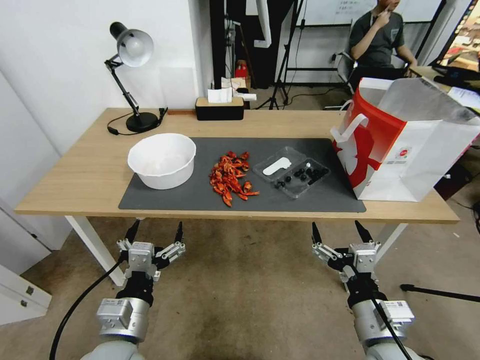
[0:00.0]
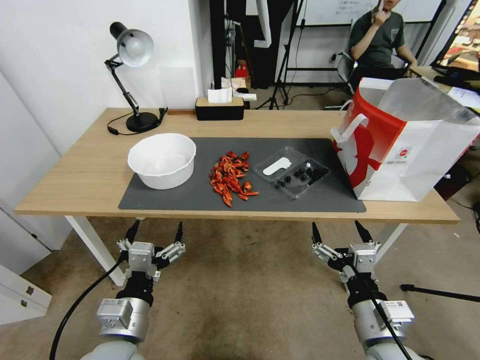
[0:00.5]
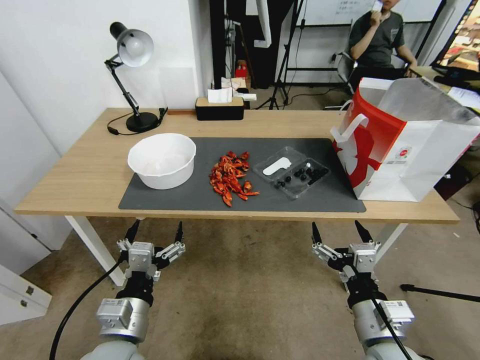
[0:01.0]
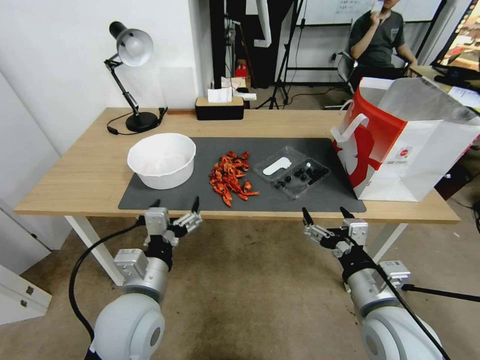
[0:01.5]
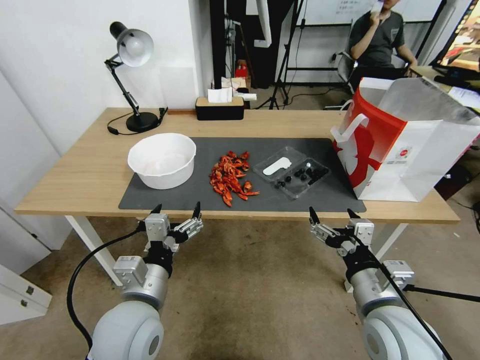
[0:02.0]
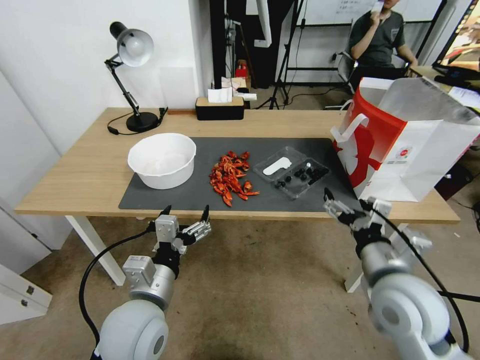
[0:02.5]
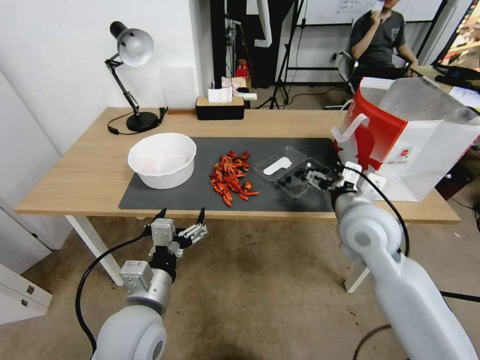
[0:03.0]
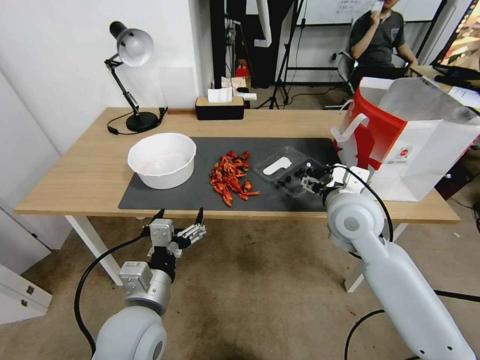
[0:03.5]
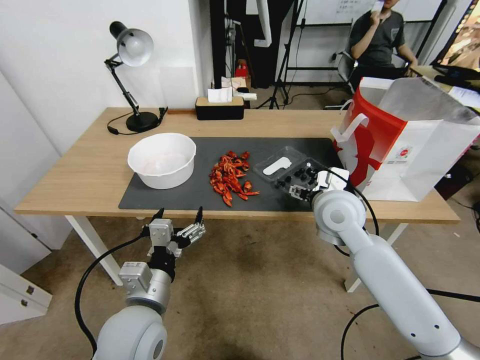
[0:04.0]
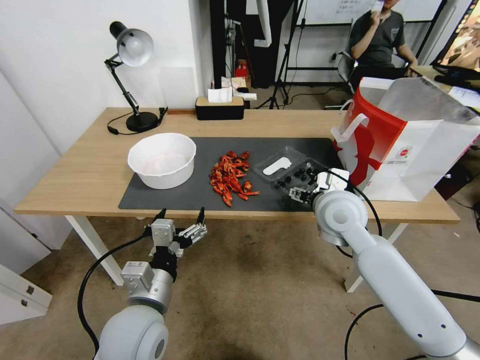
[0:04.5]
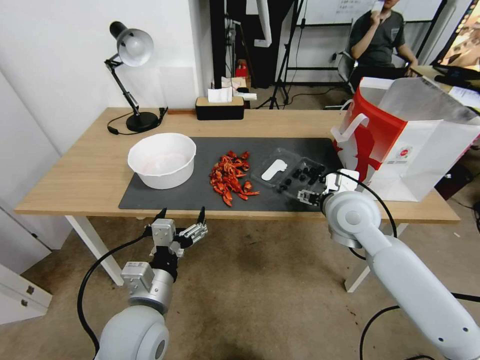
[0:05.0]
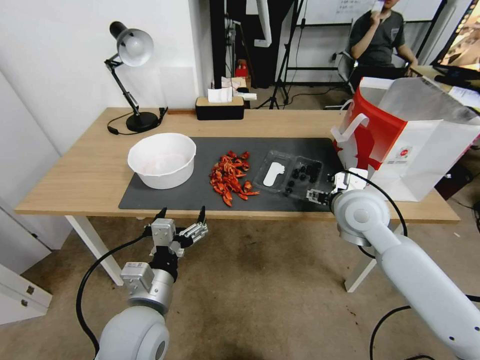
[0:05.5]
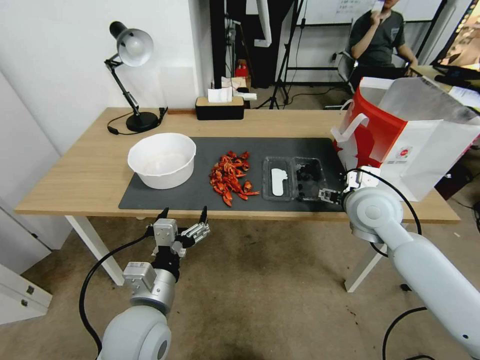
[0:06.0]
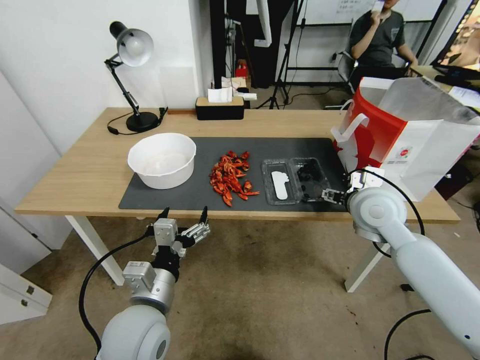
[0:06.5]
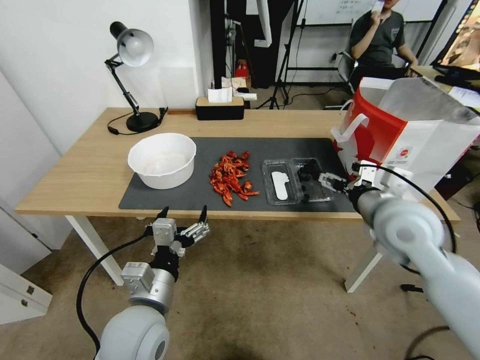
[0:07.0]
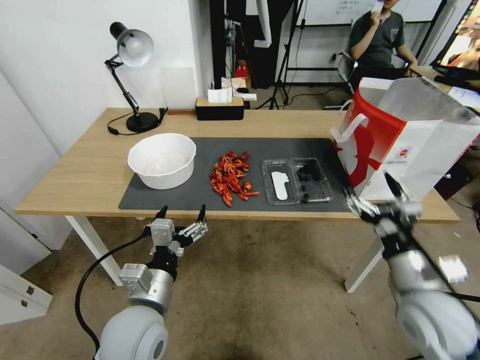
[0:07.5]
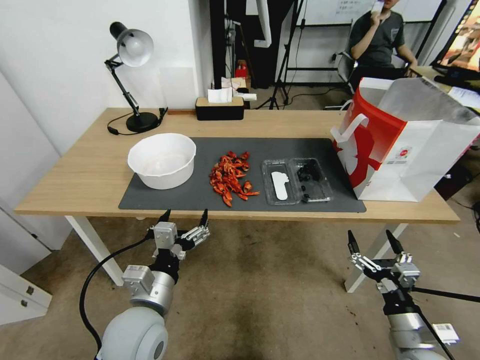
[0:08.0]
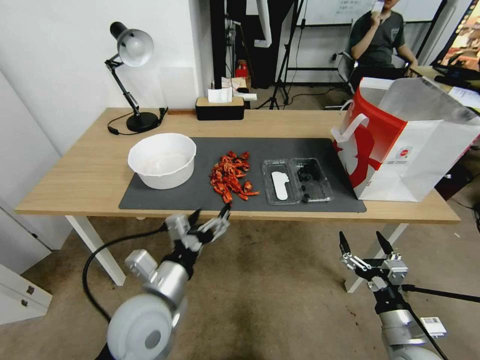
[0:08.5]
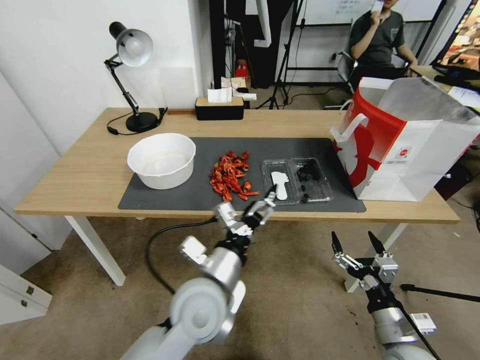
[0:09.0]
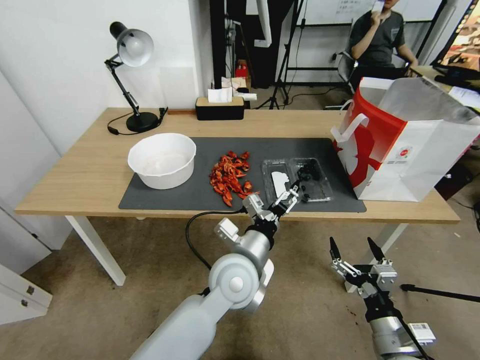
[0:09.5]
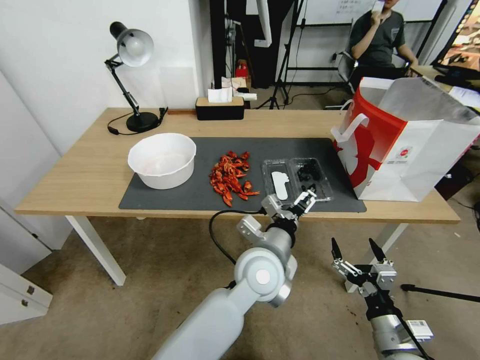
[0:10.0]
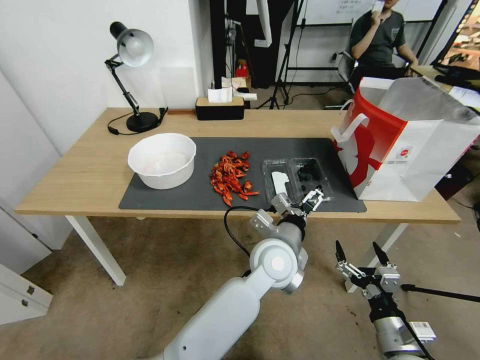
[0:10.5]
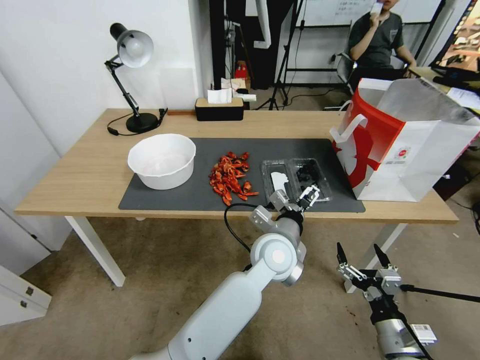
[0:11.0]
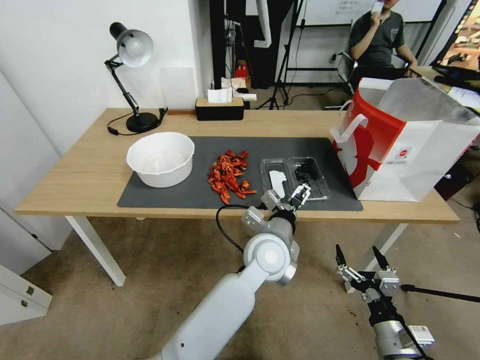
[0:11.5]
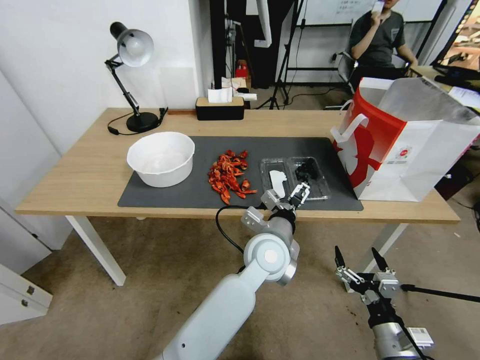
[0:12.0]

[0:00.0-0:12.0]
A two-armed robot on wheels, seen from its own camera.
0:02.0 to 0:04.0: The right gripper is displaced forward by about 20 cm.
0:04.0 to 0:06.0: The right gripper moves to the right, some 5 cm.
0:06.0 to 0:08.0: The right gripper is displaced backward and downward by approximately 30 cm.
0:08.0 to 0:10.0: The left gripper moves to the right and forward, approximately 25 cm.
0:10.0 to 0:12.0: There are only small adjustments of the grippers.

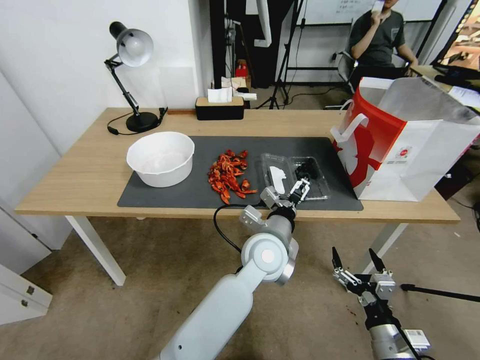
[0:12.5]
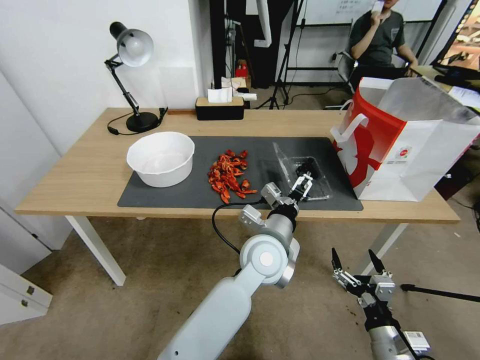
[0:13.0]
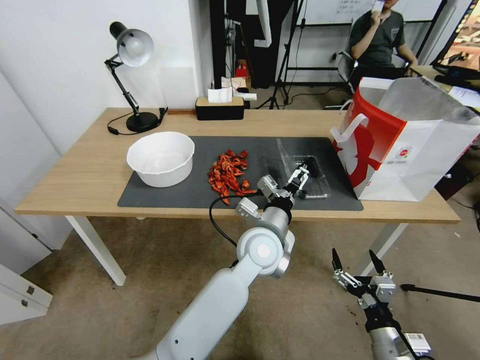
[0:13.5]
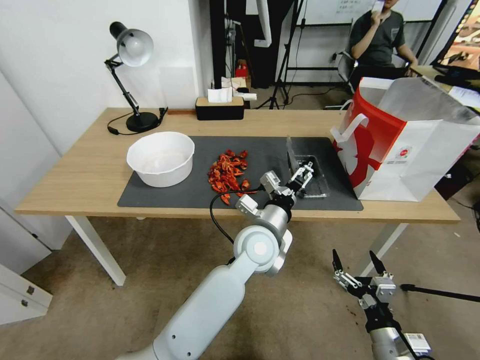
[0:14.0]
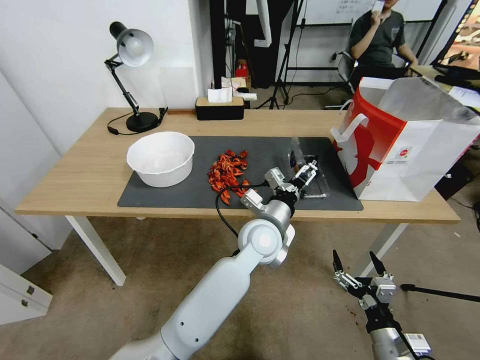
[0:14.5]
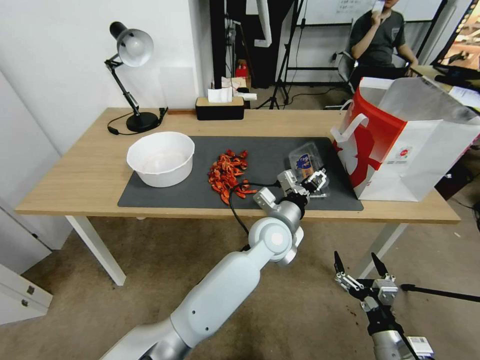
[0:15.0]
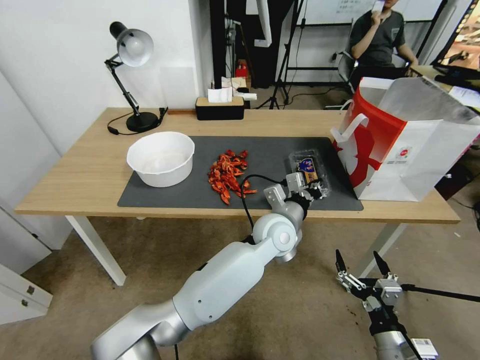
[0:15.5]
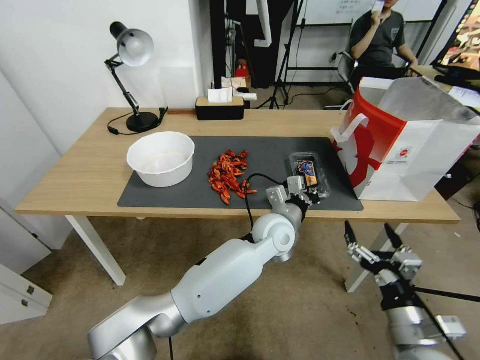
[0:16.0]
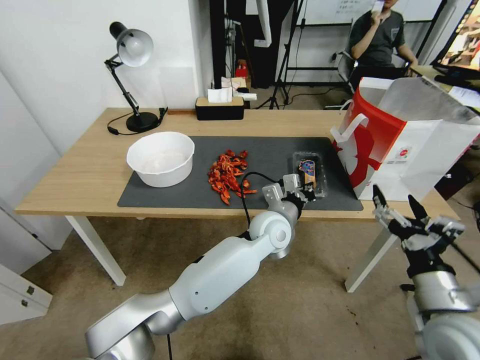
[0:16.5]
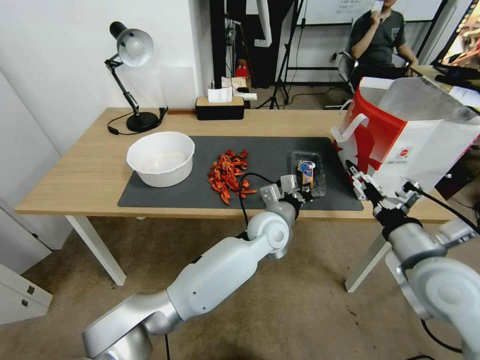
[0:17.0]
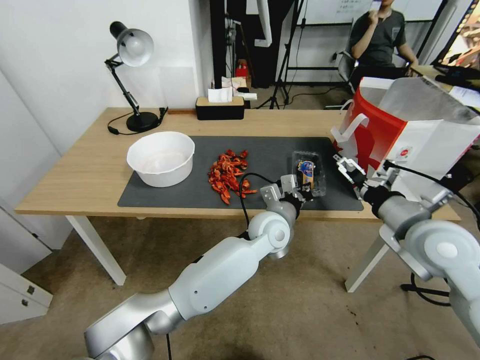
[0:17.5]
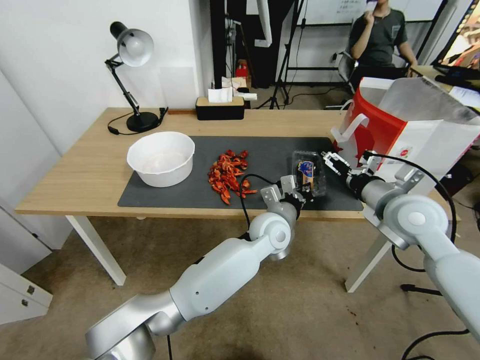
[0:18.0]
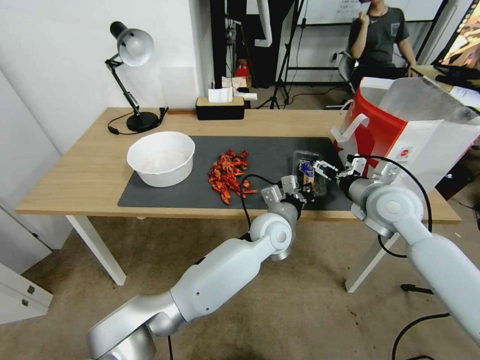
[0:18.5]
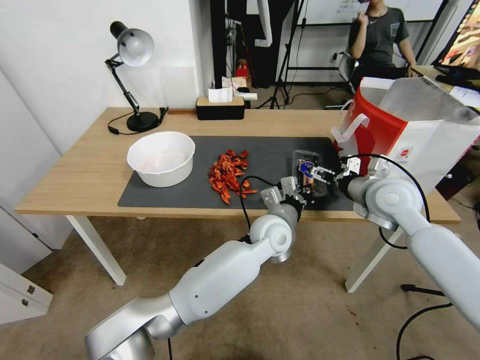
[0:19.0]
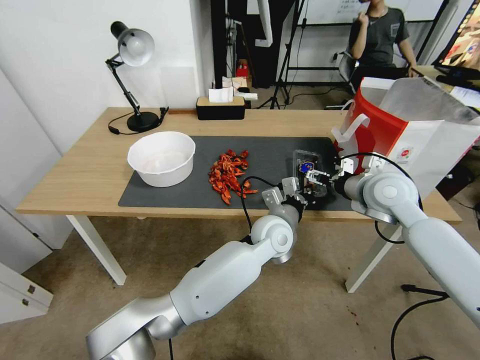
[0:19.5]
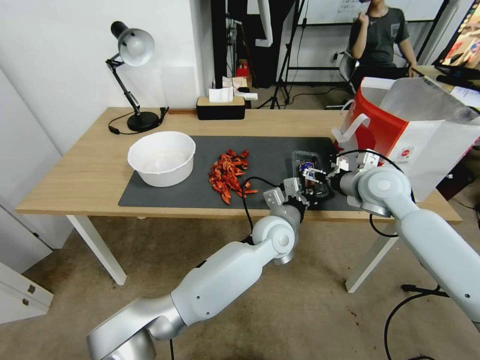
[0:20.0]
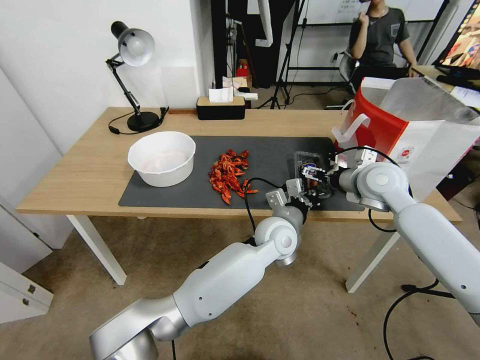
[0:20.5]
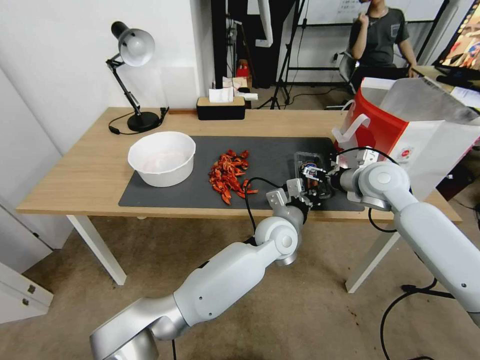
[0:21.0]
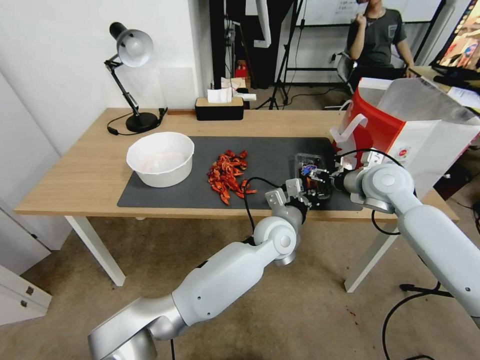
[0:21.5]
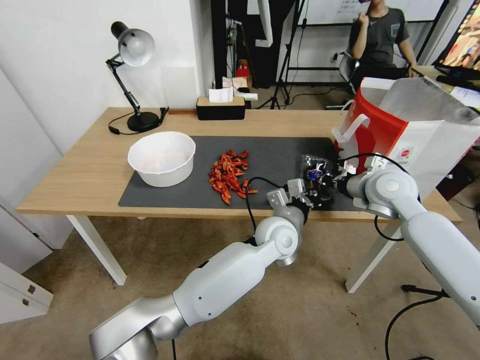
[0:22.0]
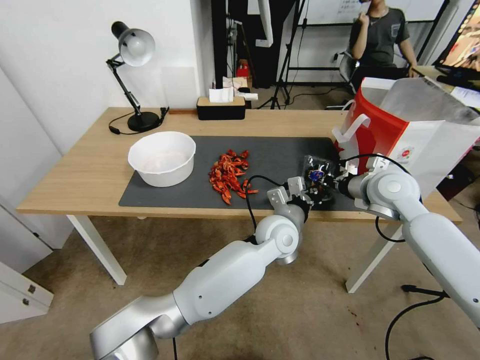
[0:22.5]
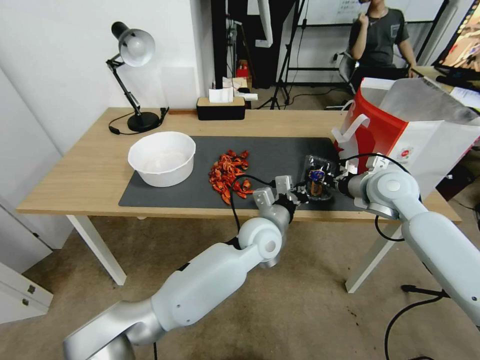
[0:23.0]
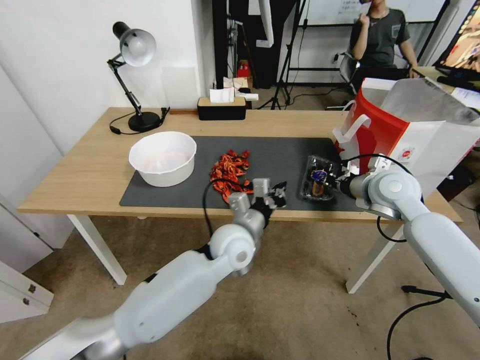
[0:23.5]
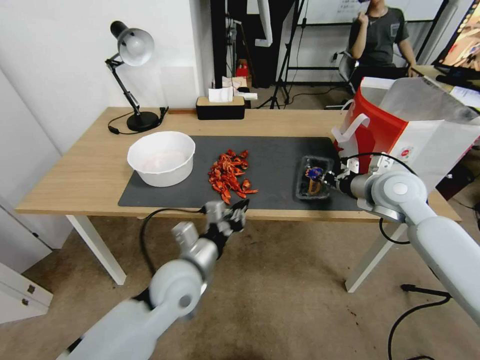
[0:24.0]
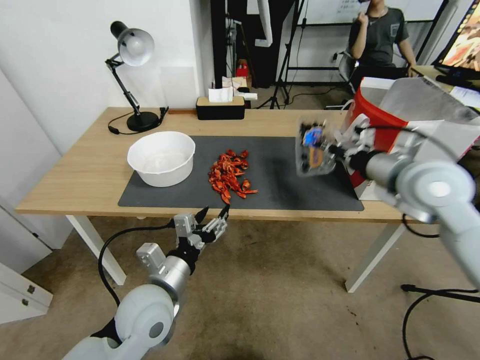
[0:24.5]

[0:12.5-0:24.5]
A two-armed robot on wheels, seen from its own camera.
0:12.5 to 0:14.5: There are only small adjustments of the grippers.
0:14.5 to 0:16.5: The right gripper goes about 15 cm upward. The left gripper closes up.
0:16.5 to 0:18.5: The right gripper travels forward by about 20 cm.
0:18.5 to 0:20.5: The right gripper shifts approximately 5 cm forward.
0:20.5 to 0:22.5: The right gripper closes.
0:22.5 to 0:24.5: The left gripper shifts about 30 cm to the left and backward, and opens up, while the right gripper goes approximately 10 cm upward and backward.

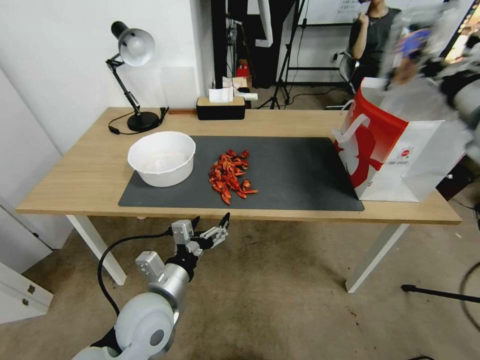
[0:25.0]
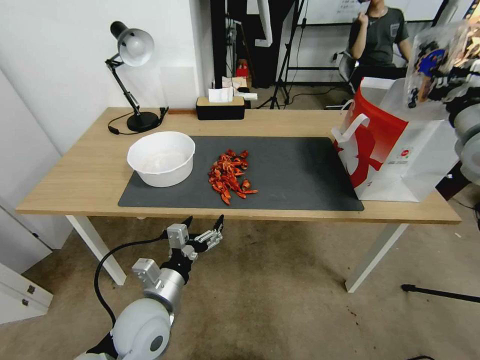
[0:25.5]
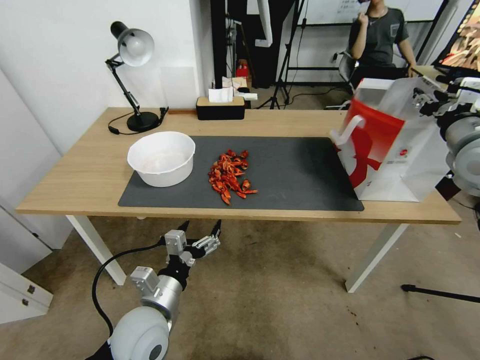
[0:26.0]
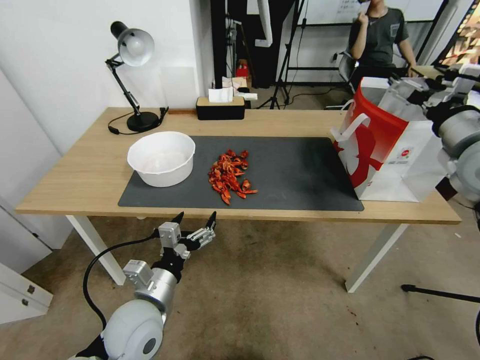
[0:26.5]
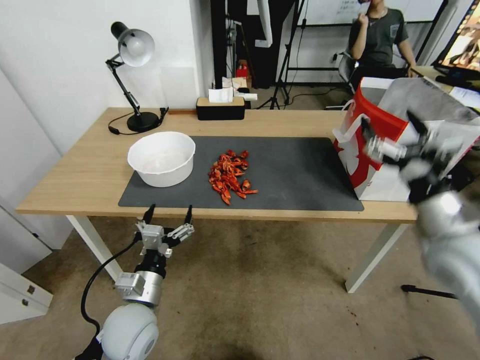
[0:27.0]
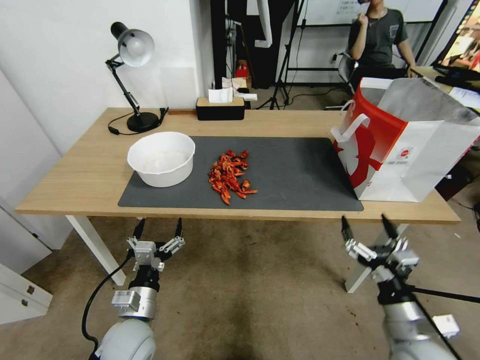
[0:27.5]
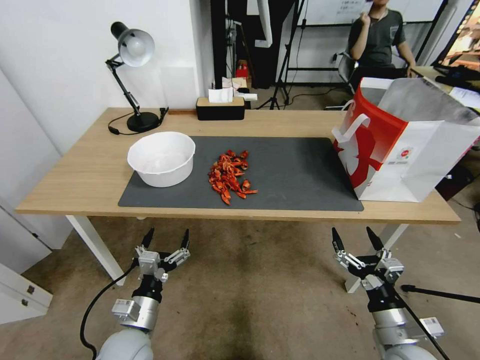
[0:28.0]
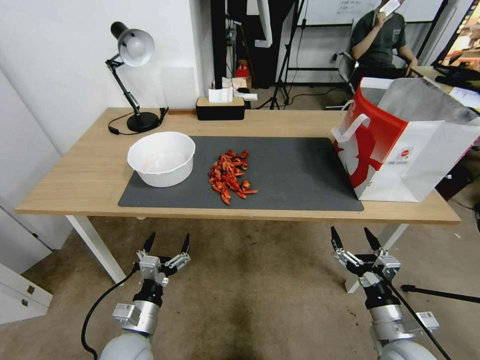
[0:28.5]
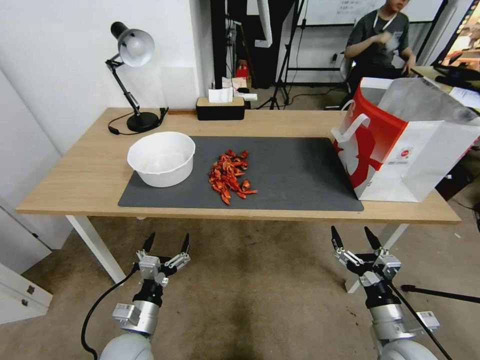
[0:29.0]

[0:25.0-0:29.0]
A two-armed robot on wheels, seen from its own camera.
0:25.0 to 0:27.0: The left gripper shifts some 5 cm downward, while the right gripper is displaced downward and backward by about 25 cm, and opens its fingers.
0:27.0 to 0:29.0: The left gripper moves downward, roughly 5 cm, while the right gripper shifts roughly 20 cm downward and backward.
